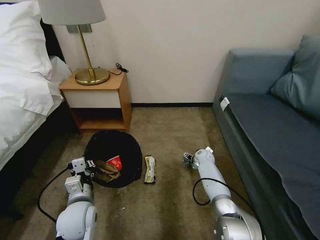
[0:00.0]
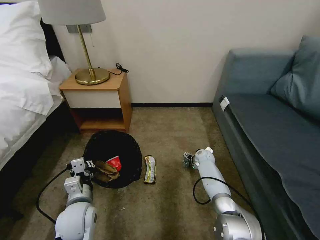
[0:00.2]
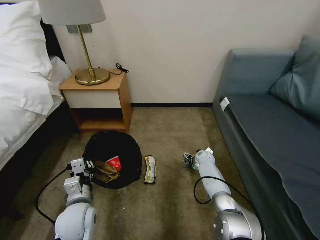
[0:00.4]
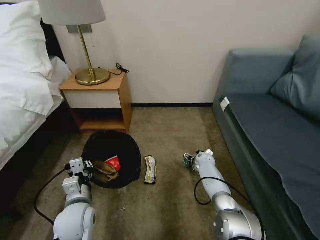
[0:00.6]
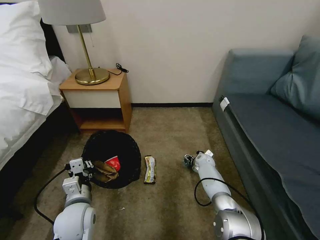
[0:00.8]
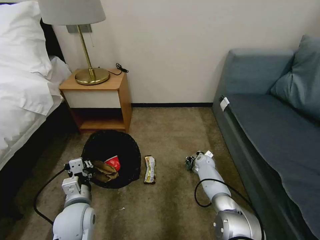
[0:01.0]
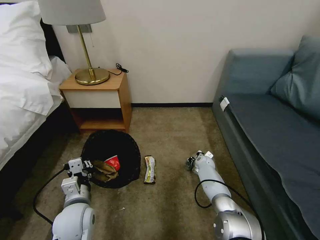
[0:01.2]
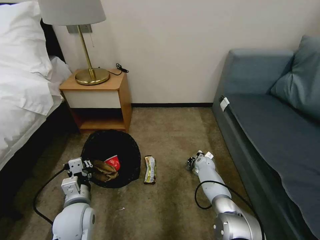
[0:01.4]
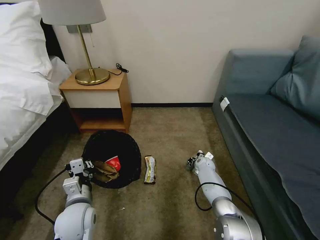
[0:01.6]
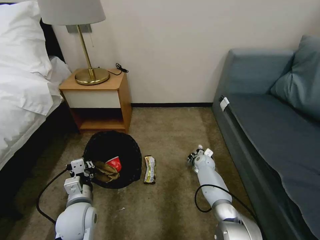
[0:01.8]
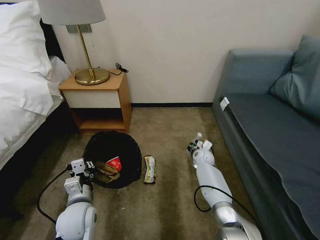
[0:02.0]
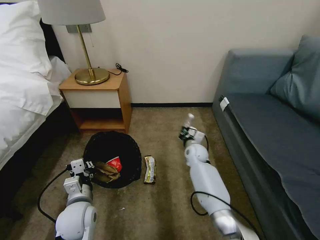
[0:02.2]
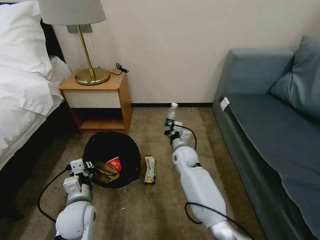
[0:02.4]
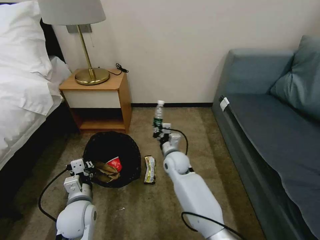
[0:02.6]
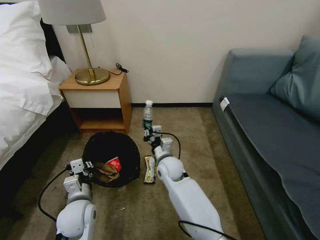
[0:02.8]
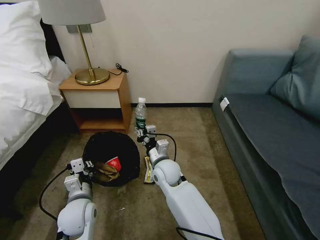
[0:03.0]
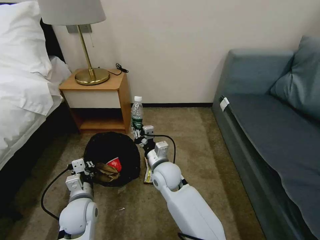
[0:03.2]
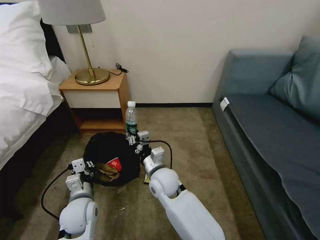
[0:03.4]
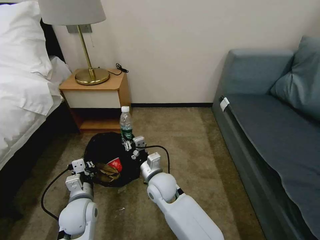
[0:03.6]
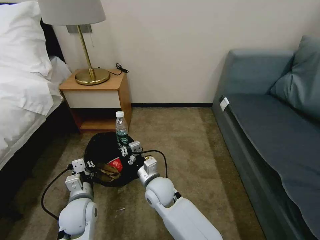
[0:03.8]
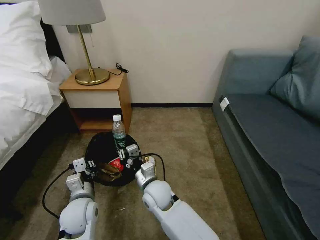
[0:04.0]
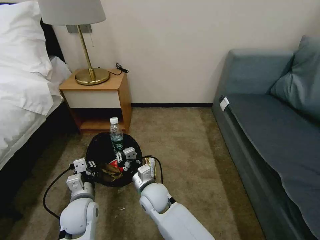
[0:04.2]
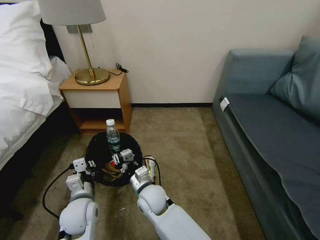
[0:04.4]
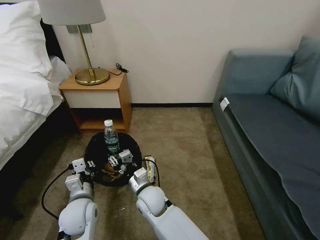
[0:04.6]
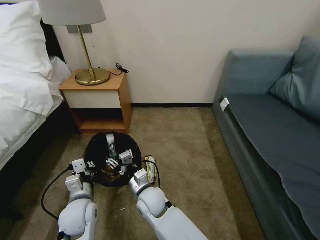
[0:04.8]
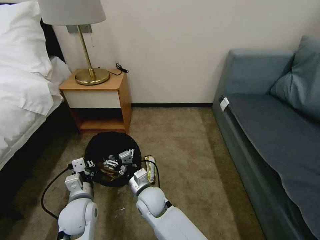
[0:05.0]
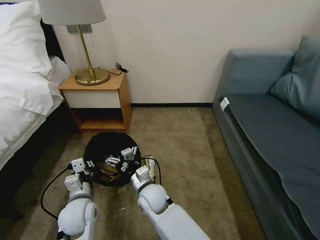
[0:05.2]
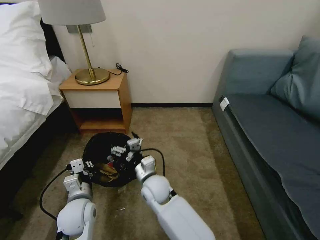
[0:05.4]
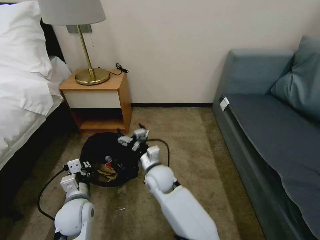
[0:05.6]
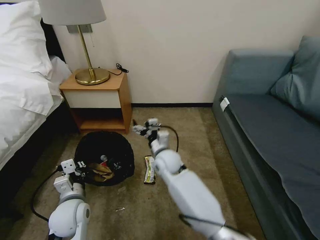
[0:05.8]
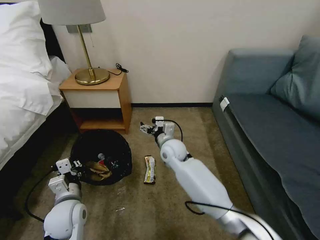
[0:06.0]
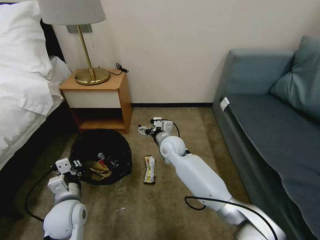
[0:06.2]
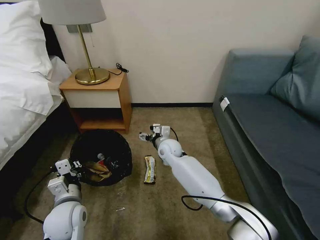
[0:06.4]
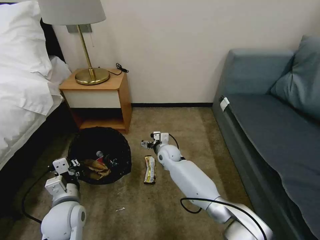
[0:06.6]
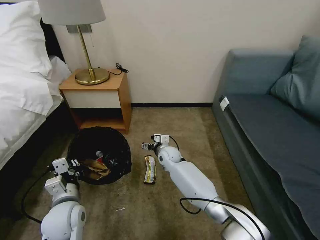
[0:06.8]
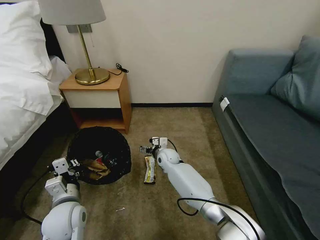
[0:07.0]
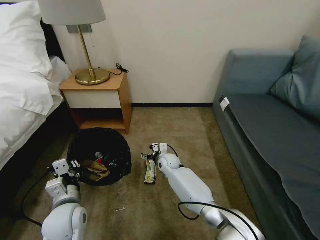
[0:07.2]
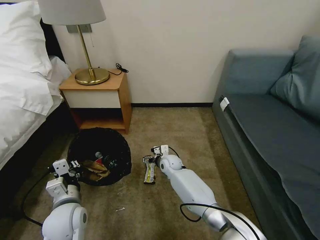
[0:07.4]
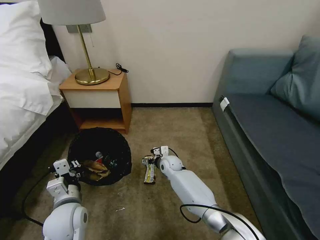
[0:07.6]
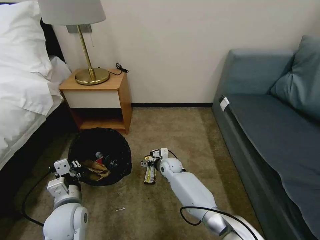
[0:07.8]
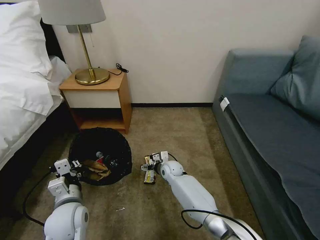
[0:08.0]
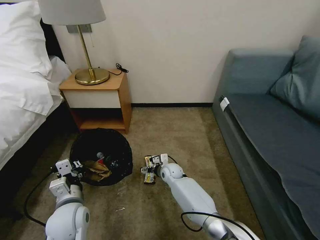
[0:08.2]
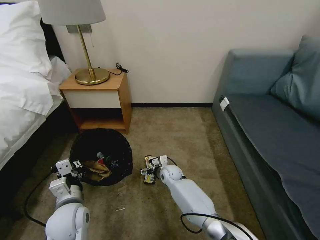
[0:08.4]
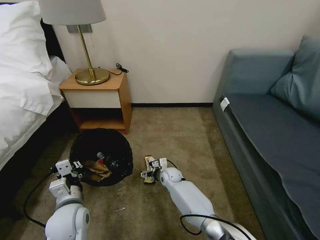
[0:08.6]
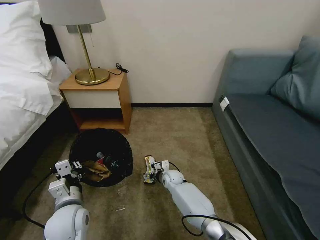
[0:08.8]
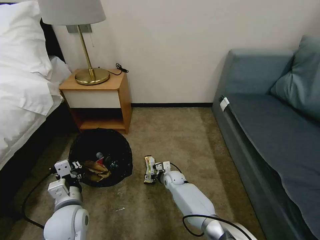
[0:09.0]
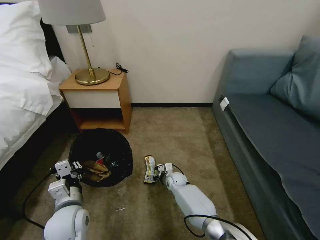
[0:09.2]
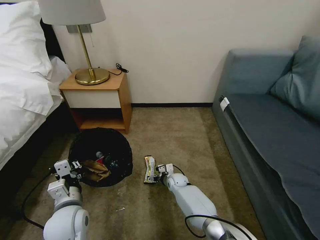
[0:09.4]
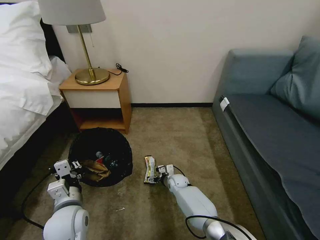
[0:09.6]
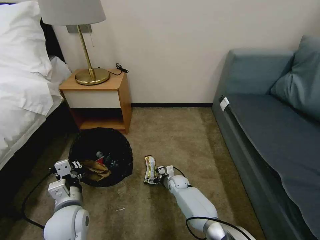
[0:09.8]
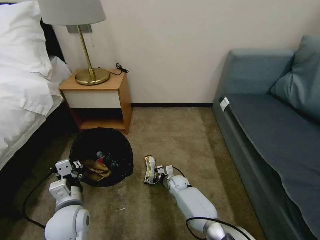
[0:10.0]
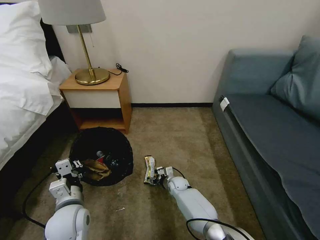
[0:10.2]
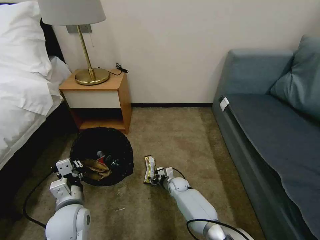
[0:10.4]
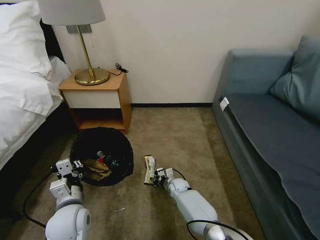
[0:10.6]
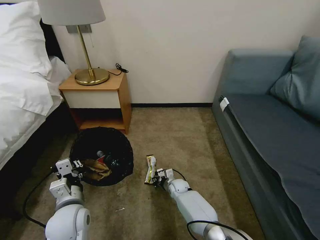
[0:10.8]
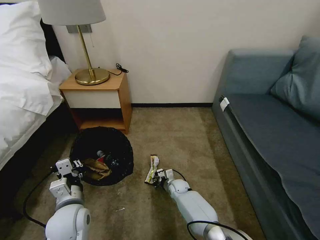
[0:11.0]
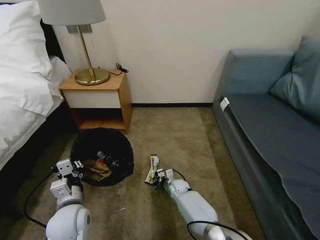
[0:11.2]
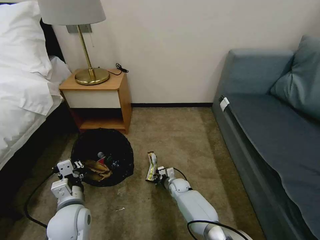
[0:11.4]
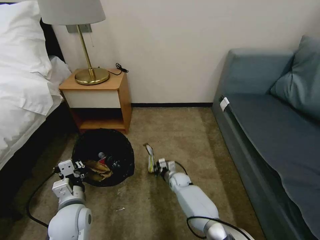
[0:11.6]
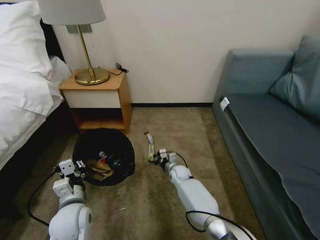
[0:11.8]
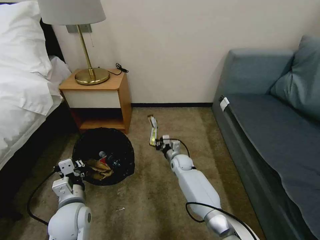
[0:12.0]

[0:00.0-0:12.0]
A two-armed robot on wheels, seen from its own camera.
Task of the whole recording: Pick up the trash bin, then pick up the garbage on the floor and place it into the trash bin.
0:00.0 to 0:01.6: The right gripper moves roughly 5 cm, and closes up.
0:01.6 to 0:03.0: The right gripper goes roughly 30 cm to the left, upward and backward.
0:03.0 to 0:04.4: The right gripper moves backward and to the left, approximately 10 cm.
0:04.4 to 0:06.0: The right gripper travels forward, to the right and upward by about 20 cm, and opens up.
0:06.0 to 0:07.6: The right gripper travels downward by about 15 cm.
0:07.6 to 0:09.0: The right gripper heads downward, covering roughly 10 cm.
0:09.0 to 0:10.4: The right gripper closes up.
0:10.4 to 0:12.0: The right gripper heads upward and forward, covering roughly 10 cm, and closes up.

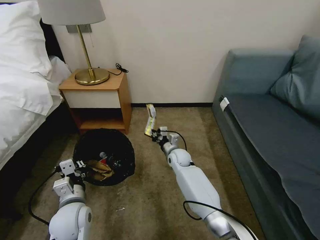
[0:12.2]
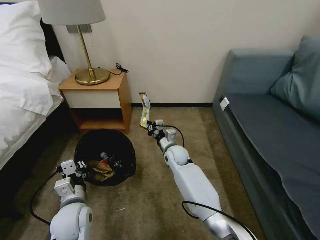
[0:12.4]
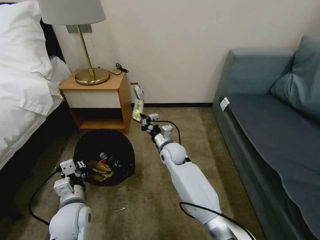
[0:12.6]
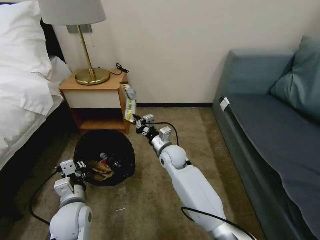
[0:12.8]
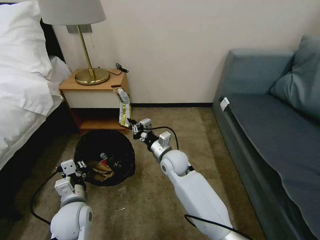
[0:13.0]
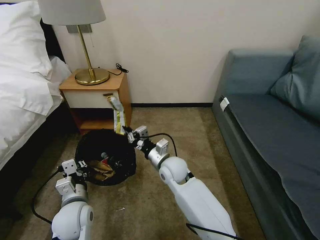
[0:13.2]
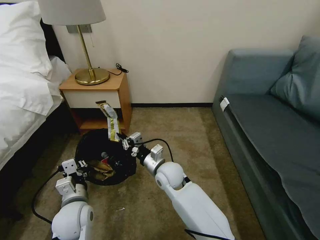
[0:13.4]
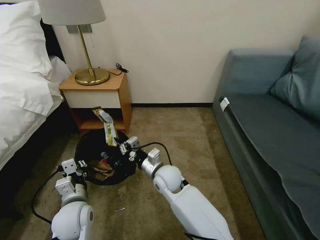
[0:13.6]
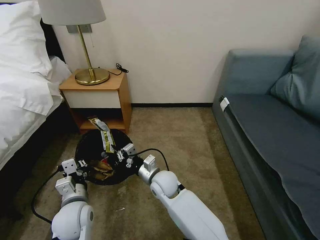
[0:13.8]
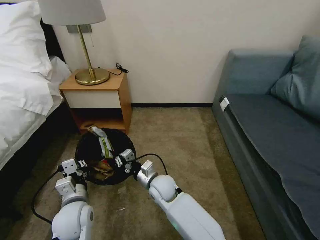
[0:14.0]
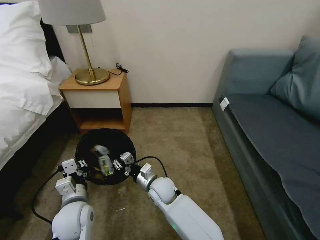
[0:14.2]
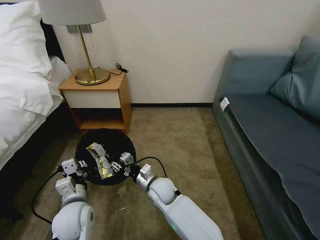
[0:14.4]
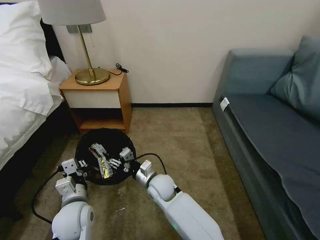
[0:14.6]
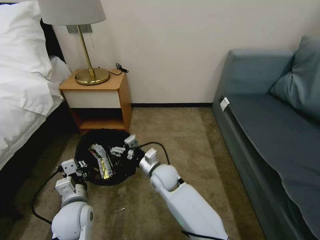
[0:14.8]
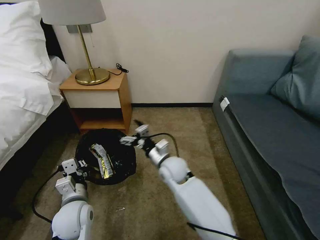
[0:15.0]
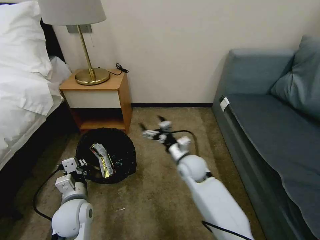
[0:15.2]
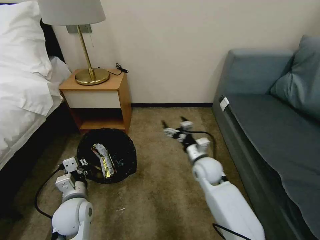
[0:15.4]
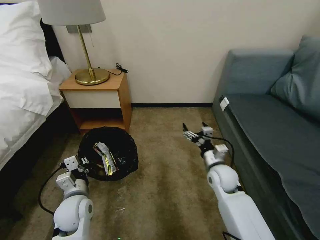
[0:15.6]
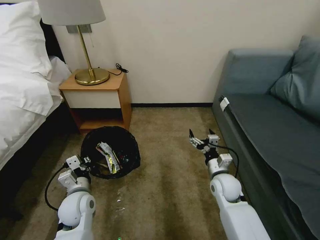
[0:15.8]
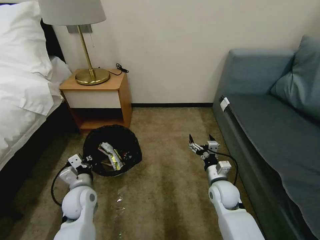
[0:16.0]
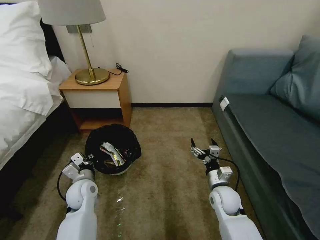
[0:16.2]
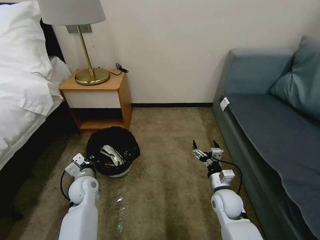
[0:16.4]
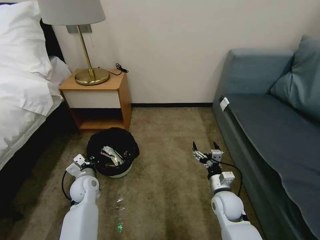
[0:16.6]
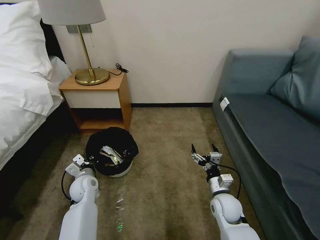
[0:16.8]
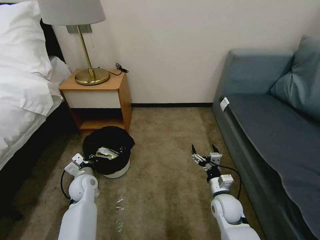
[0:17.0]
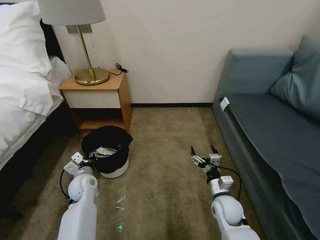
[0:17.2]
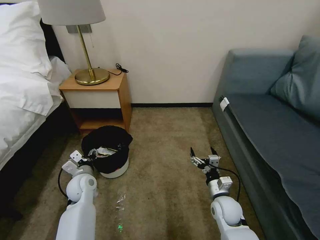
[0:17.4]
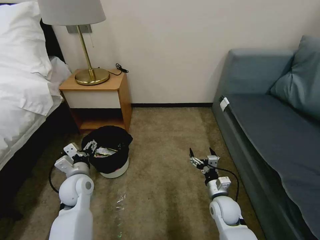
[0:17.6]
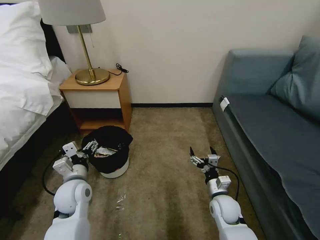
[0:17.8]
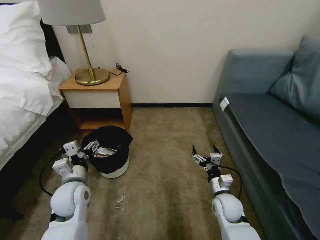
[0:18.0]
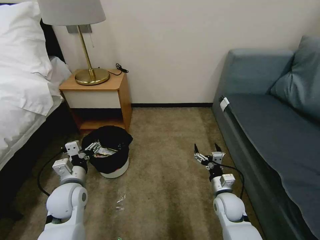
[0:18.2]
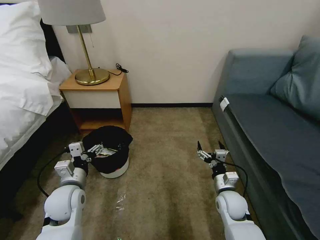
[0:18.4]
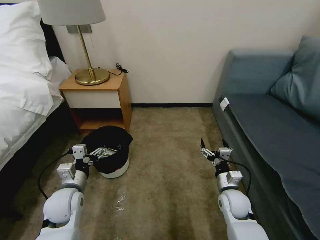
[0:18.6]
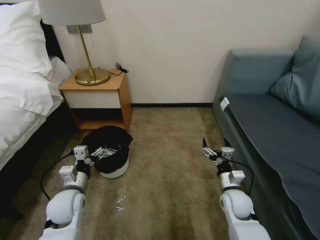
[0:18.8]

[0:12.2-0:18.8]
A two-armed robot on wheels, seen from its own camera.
Task of the whole recording: Pick up the trash bin, then pick up the garbage on the floor and place it into the trash bin.
0:12.2 to 0:13.8: The right gripper moves backward, to the left and upward, some 20 cm.
0:13.8 to 0:15.4: The right gripper is displaced to the right by some 15 cm, and opens.
0:15.4 to 0:17.2: The left gripper goes some 10 cm forward and downward, and opens up, while the right gripper shifts about 15 cm backward, downward and to the right.
0:17.2 to 0:18.8: The left gripper moves backward and upward, about 10 cm, and opens.
